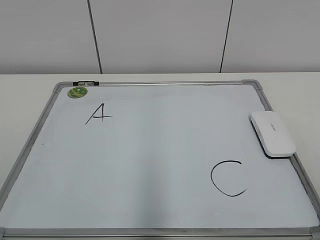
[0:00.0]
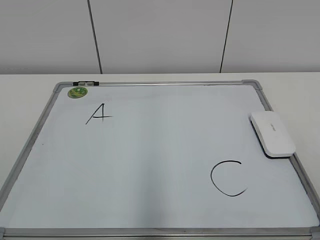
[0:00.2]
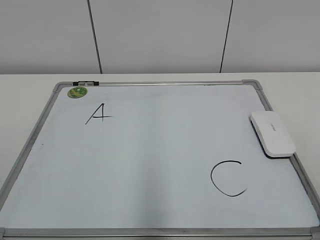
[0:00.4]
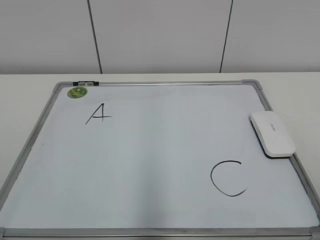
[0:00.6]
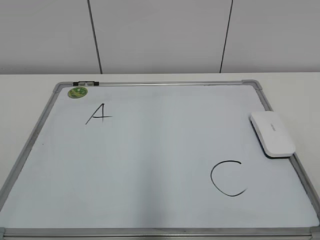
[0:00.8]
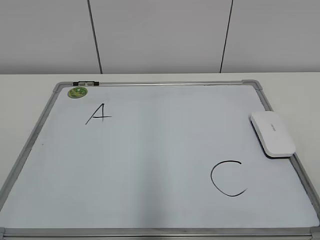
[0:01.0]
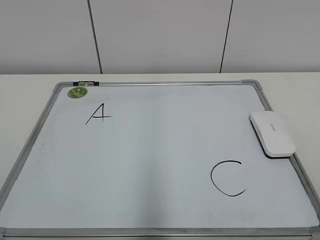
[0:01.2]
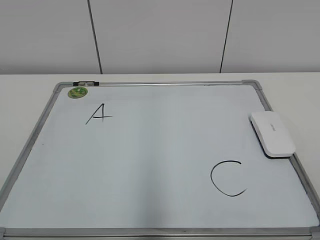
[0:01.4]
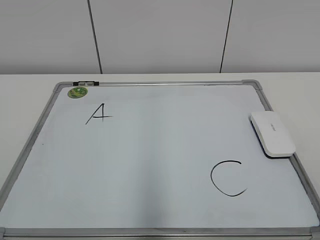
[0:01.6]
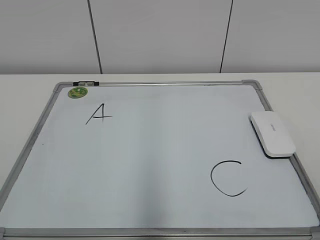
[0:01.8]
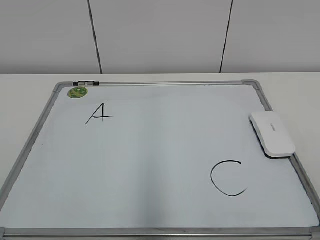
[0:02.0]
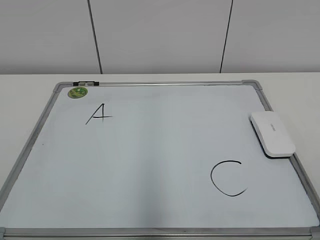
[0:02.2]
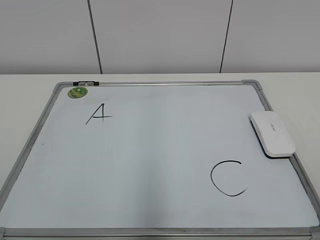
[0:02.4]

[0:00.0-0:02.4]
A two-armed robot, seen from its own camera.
Task of the whole recording: pick up the eraser on the blackboard and erase the letter "B".
0:01.2 to 0:02.4: Both grippers stay put.
